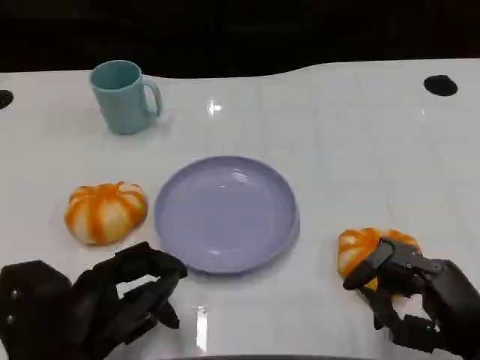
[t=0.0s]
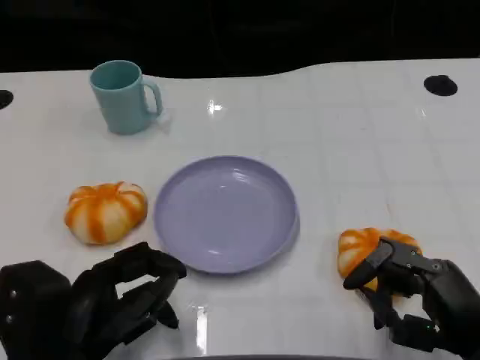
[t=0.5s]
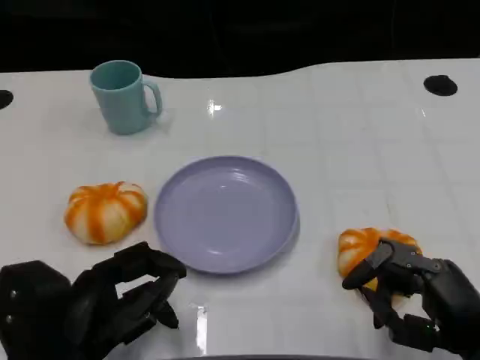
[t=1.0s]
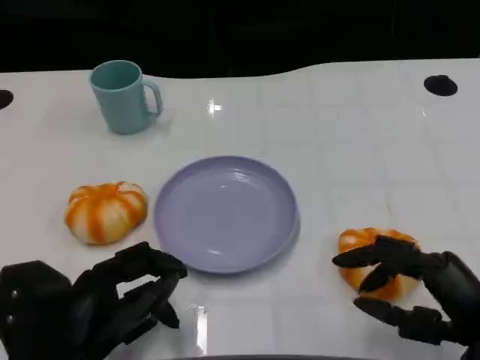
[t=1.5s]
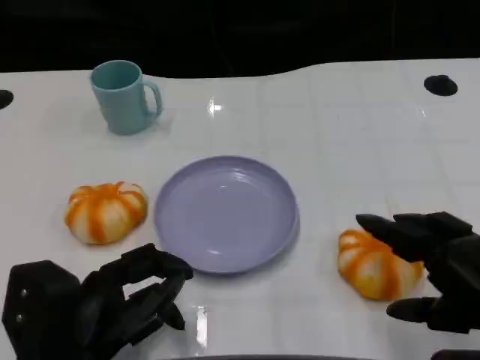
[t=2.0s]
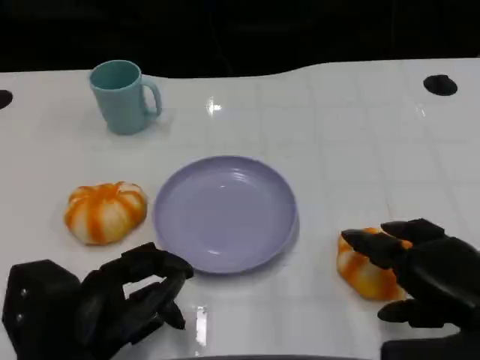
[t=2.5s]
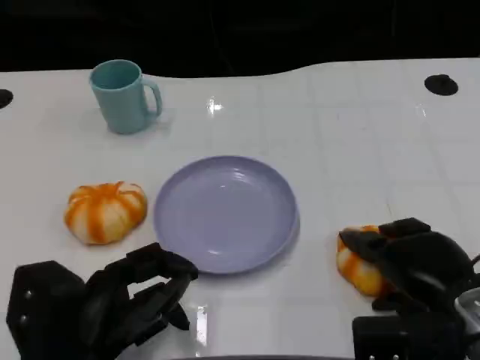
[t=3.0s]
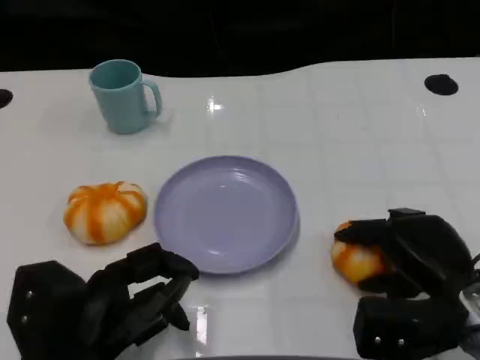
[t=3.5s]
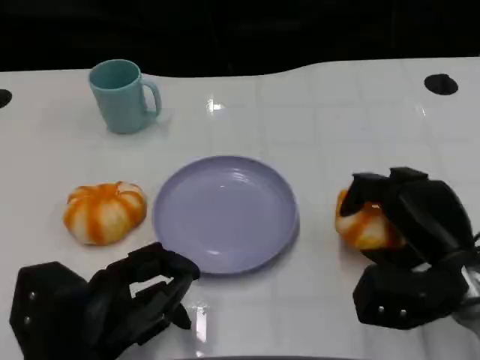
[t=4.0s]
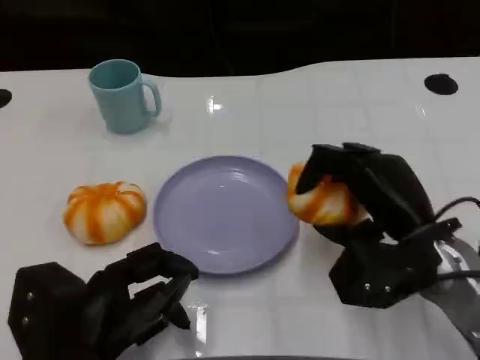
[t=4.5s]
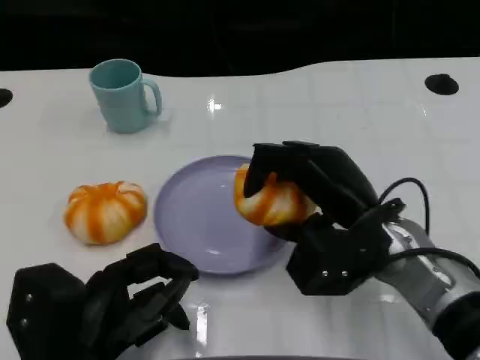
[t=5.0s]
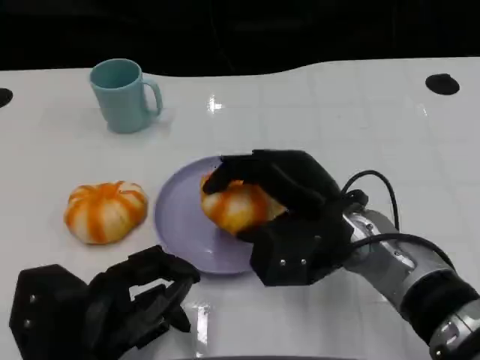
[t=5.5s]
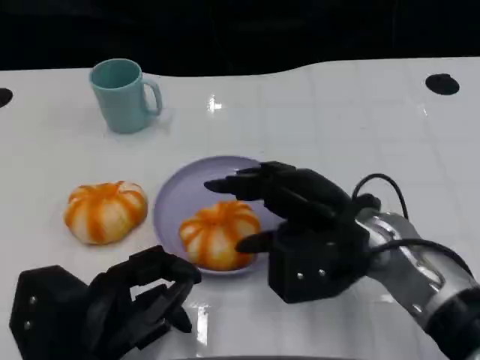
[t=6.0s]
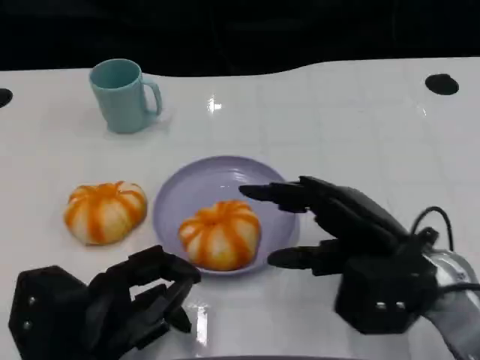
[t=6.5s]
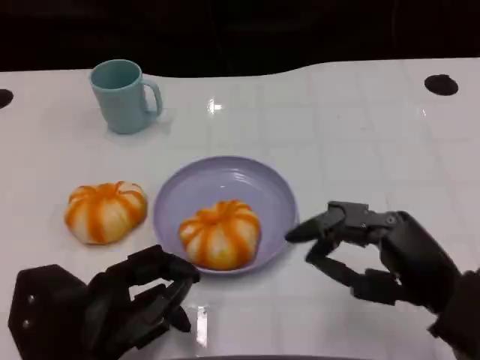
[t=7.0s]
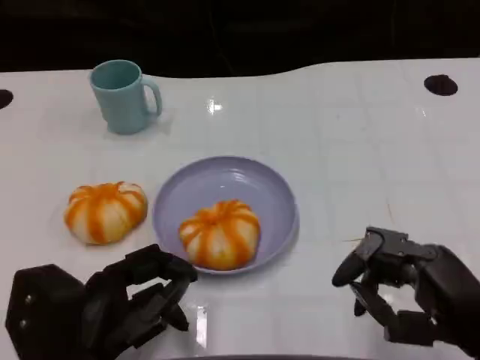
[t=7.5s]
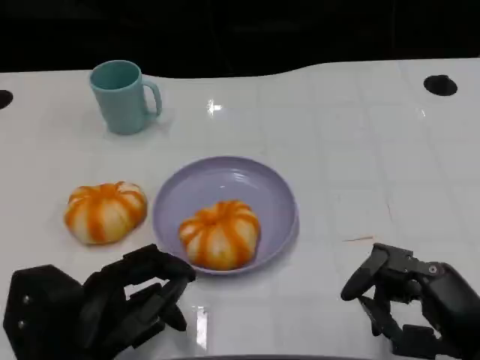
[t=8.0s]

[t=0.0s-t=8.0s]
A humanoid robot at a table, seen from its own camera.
Task of the whole recording: Grasp the bread from the table and place it into the plate.
t=0.0s to t=2.0s: The right hand moves upward, some 5 cm.
t=2.0s to t=4.0s: The right hand moves forward, approximately 10 cm.
t=4.0s to t=6.0s: The right hand heads to the left, covering roughly 10 cm.
t=6.0s to t=8.0s: The right hand goes approximately 15 cm backward and to the right.

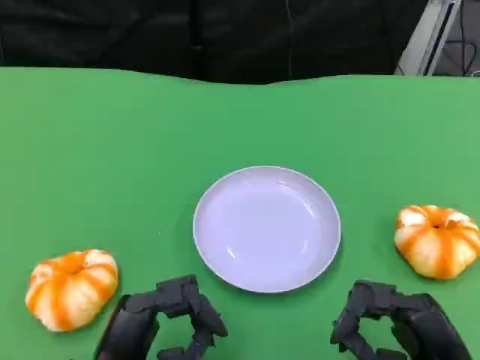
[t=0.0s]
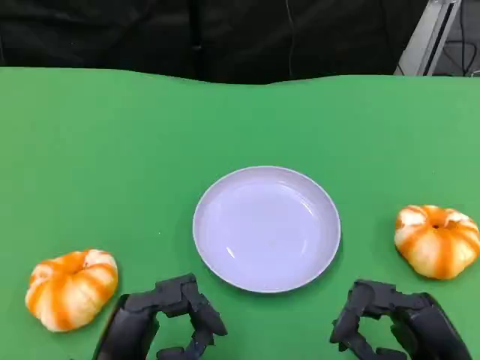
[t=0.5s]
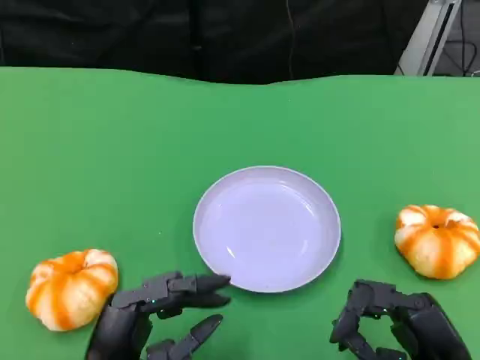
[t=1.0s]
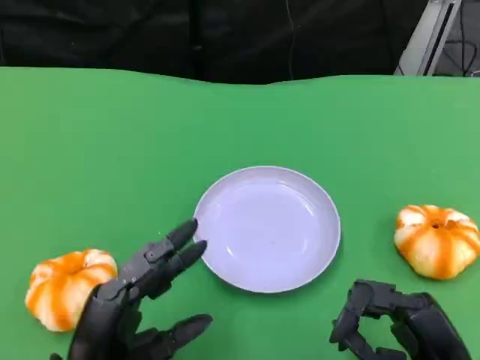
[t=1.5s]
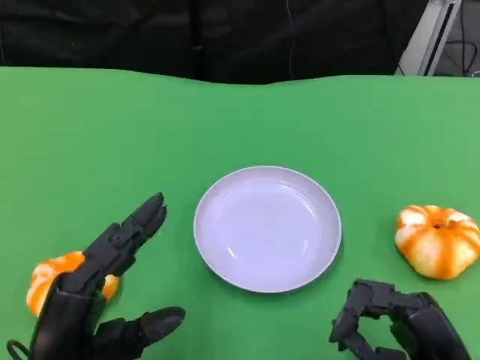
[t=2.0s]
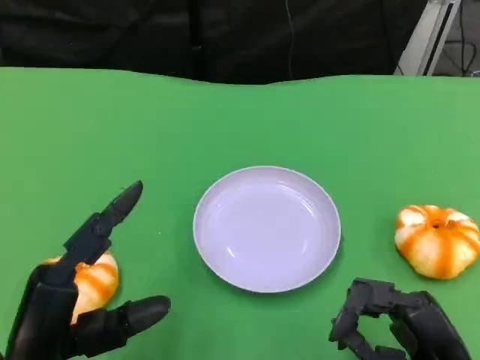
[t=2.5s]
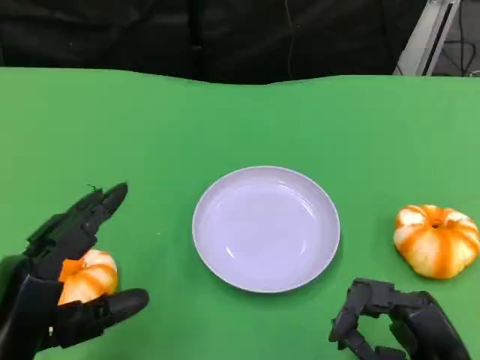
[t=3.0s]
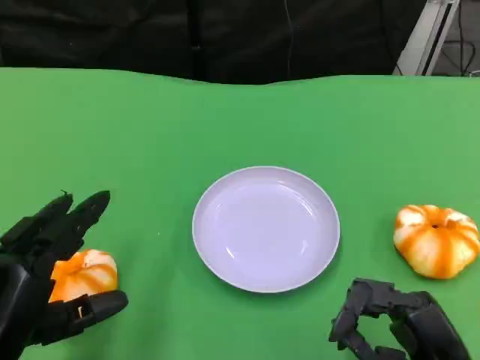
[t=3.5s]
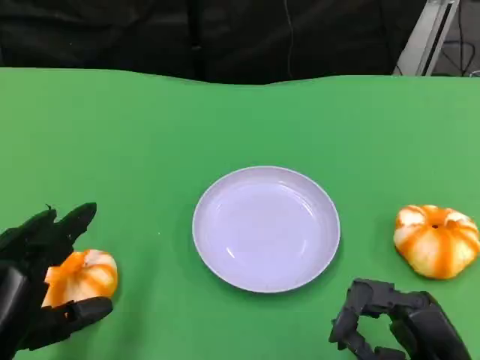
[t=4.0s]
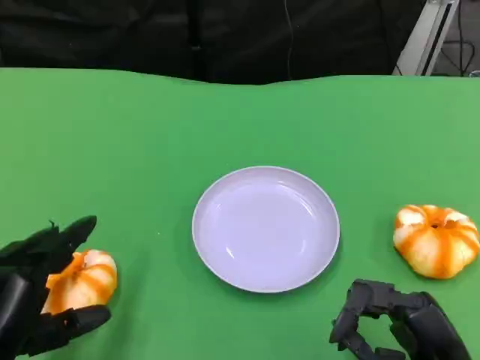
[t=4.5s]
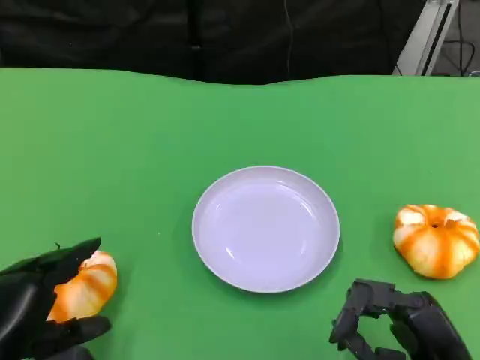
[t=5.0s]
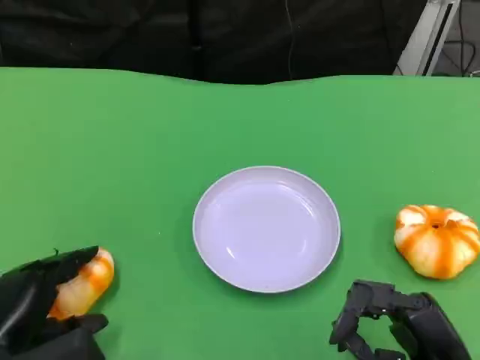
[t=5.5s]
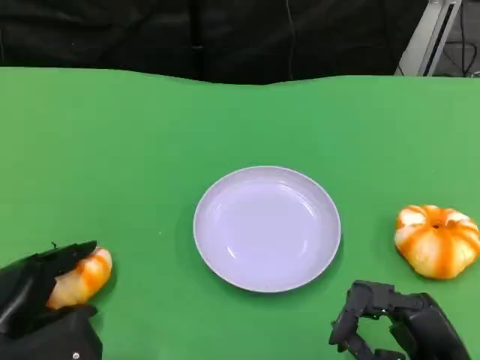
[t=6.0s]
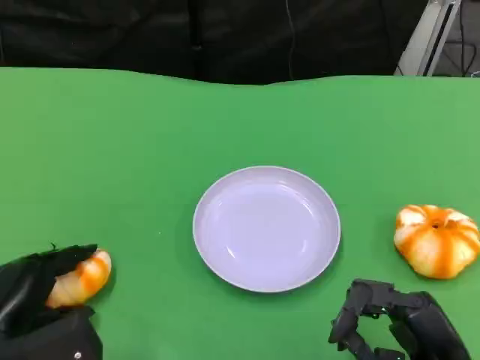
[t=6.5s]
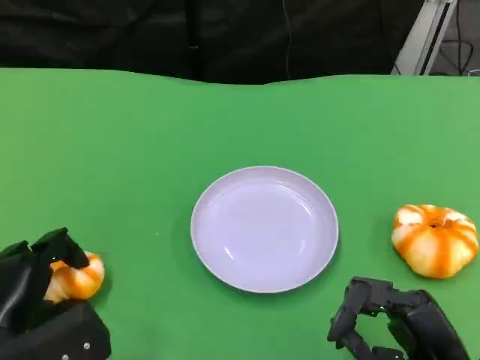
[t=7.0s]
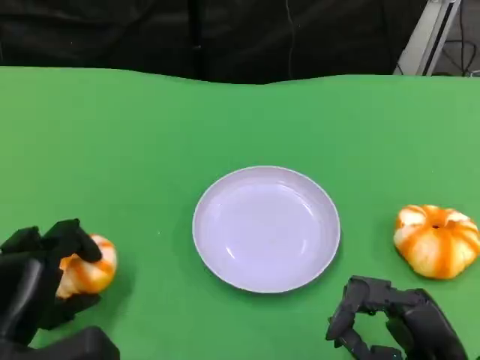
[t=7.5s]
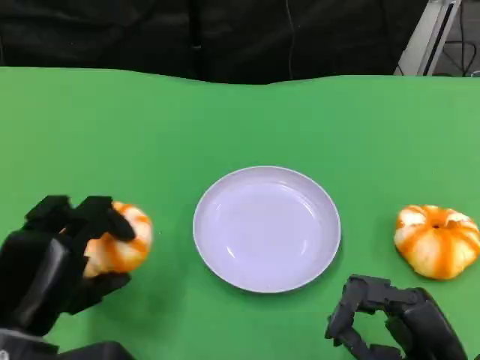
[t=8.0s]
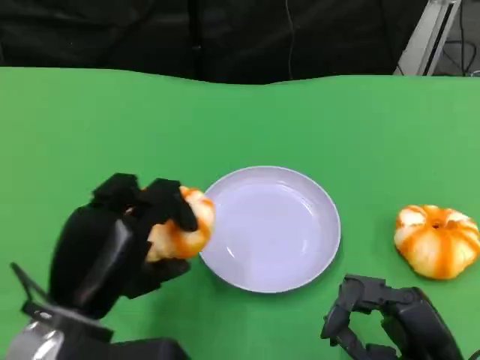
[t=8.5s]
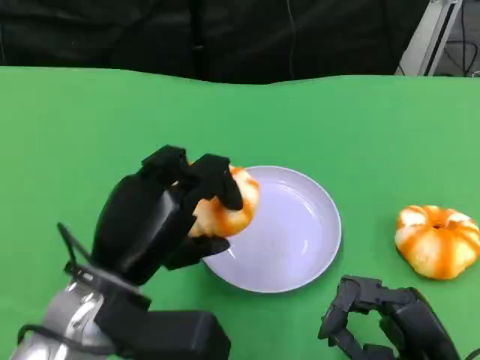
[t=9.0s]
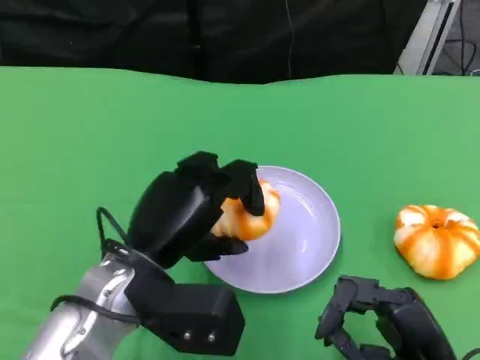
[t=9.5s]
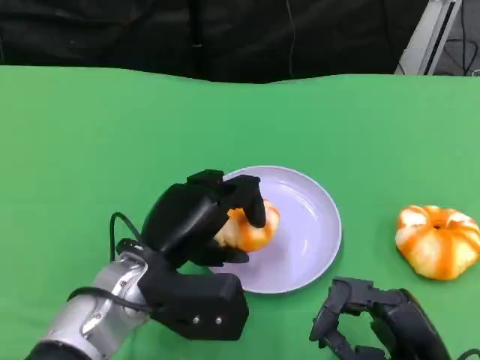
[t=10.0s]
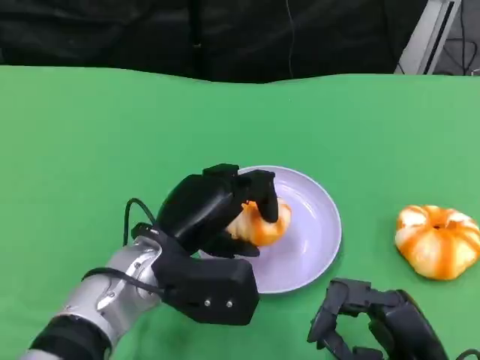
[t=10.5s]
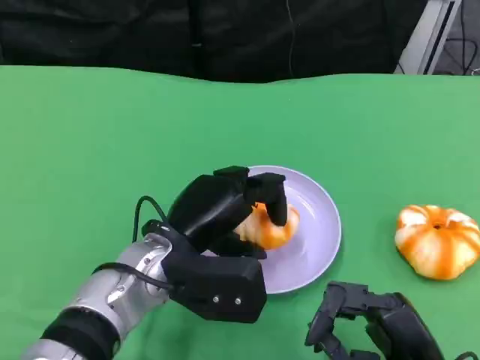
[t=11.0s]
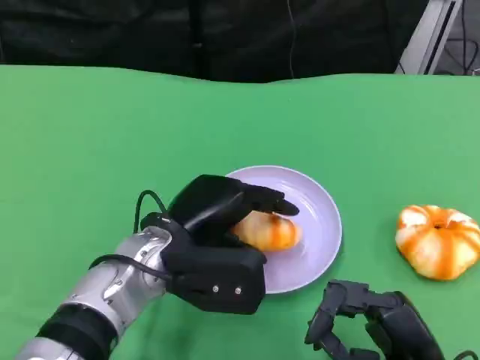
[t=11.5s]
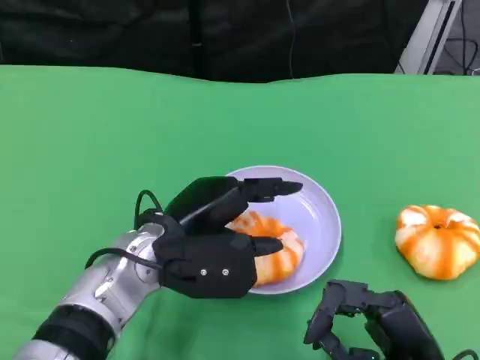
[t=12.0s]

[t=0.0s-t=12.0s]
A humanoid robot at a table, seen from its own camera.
Task of the whole recording: Grasp the bread from the table and place it into the plate.
t=0.0s to t=2.0s: The left hand moves roughly 5 cm.
t=2.0s to t=4.0s: The left hand is displaced to the left by some 5 cm.
t=4.0s to t=6.0s: The left hand ends up approximately 5 cm from where it was.
t=6.0s to t=8.0s: The left hand travels upward by roughly 5 cm.
t=8.0s to t=10.0s: The left hand is displaced to the right and forward by about 15 cm.
t=10.0s to t=12.0s: There are only small adjustments of the hands.

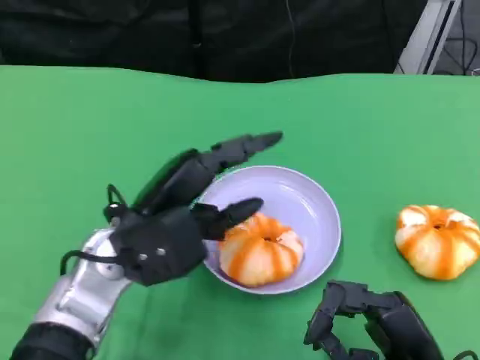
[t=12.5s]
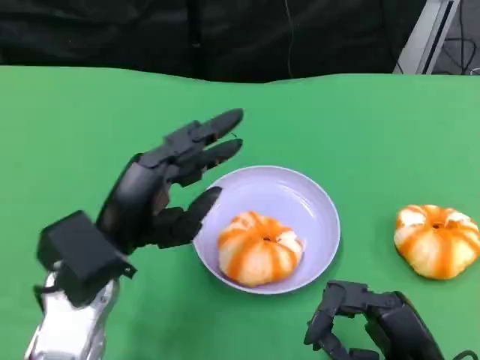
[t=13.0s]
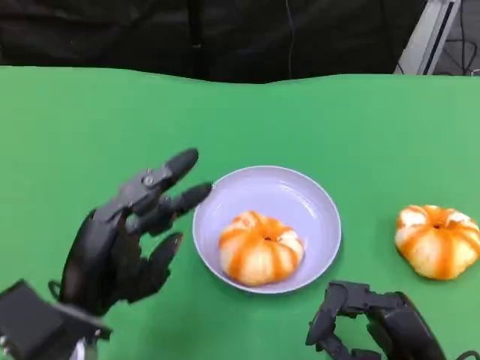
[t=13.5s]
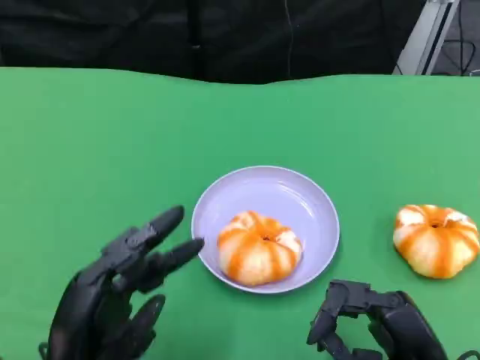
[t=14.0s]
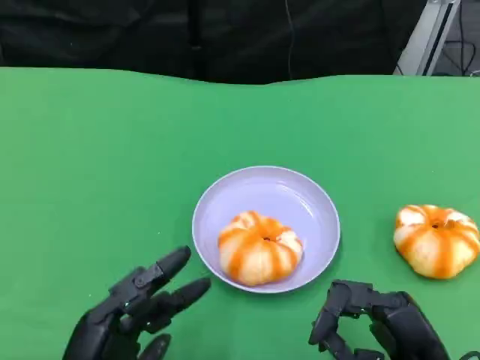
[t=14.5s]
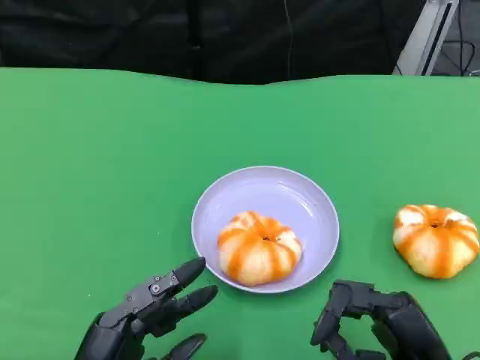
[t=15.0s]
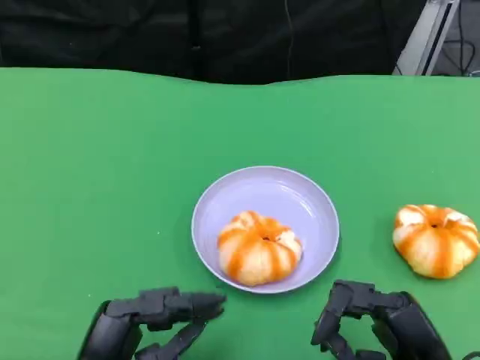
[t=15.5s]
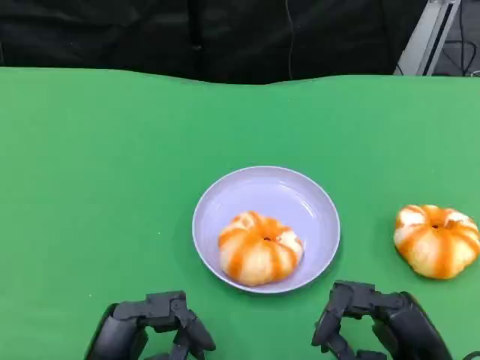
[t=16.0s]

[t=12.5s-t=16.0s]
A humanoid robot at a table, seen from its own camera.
Task of the whole recording: Grasp the bread from the table and place it into the plate.
t=12.5s to t=14.5s: The left hand heads backward and downward, covering some 15 cm.
t=14.5s to t=16.0s: The hands stay close to where they were, moving slightly.
